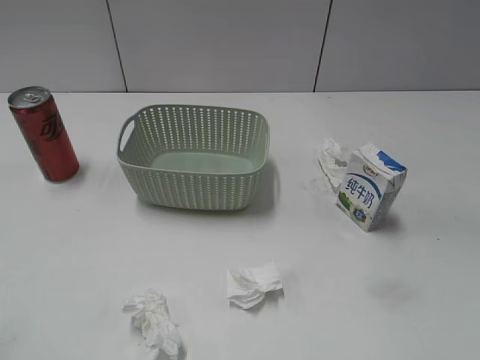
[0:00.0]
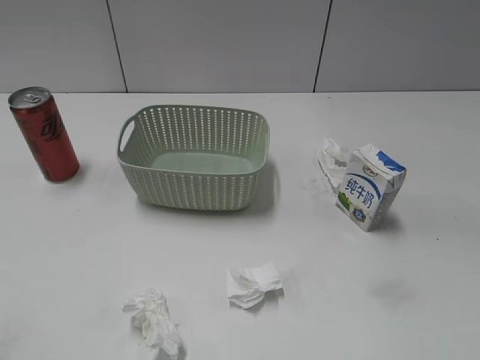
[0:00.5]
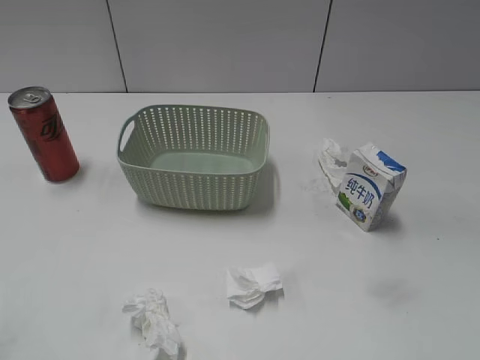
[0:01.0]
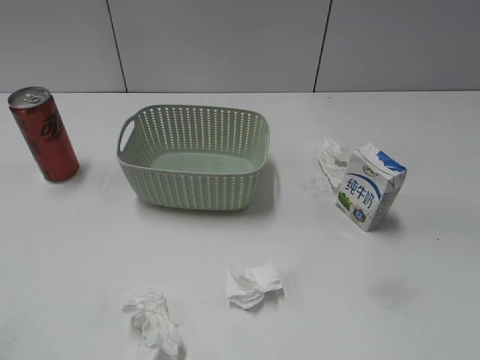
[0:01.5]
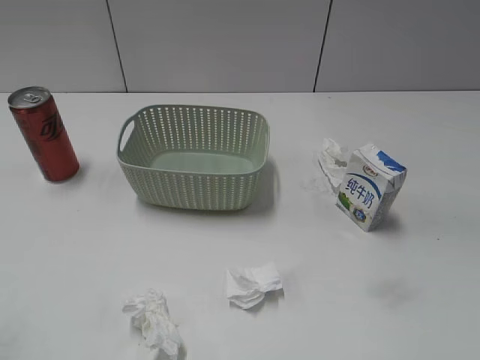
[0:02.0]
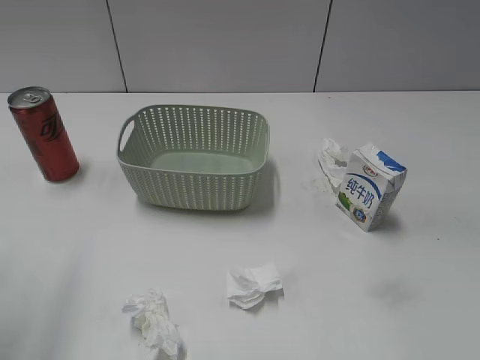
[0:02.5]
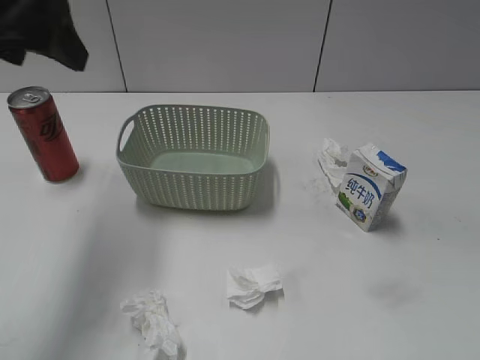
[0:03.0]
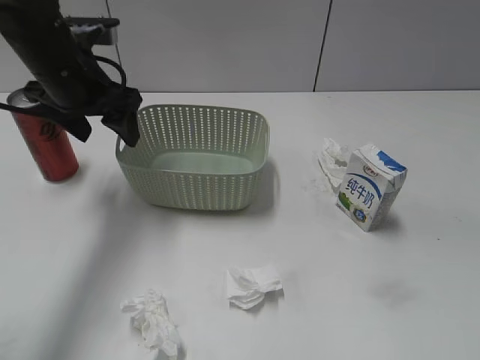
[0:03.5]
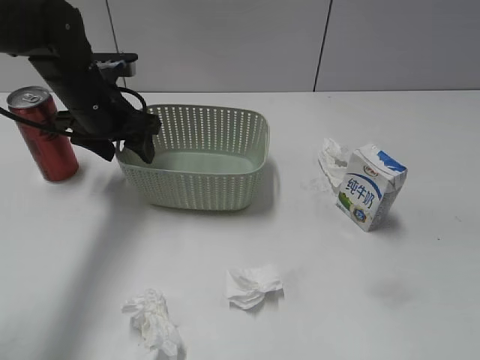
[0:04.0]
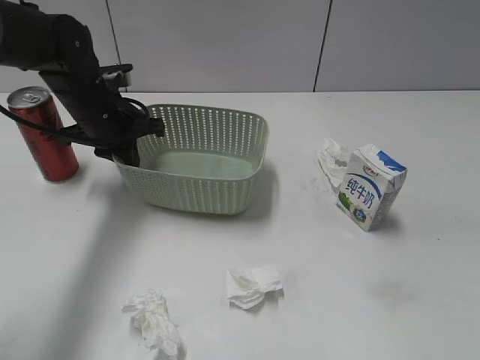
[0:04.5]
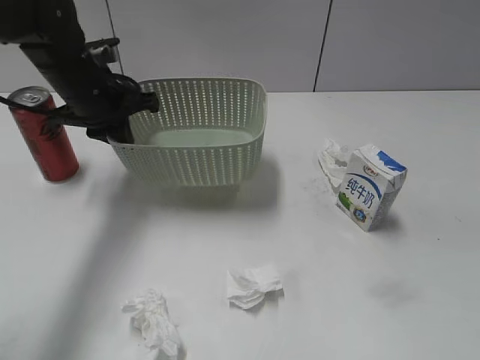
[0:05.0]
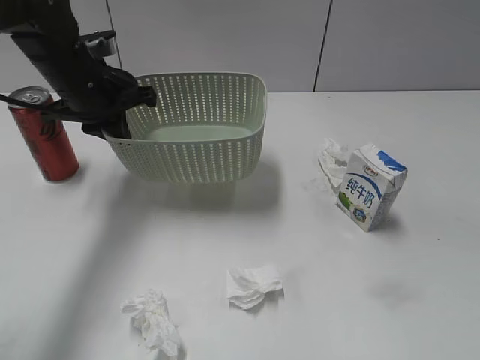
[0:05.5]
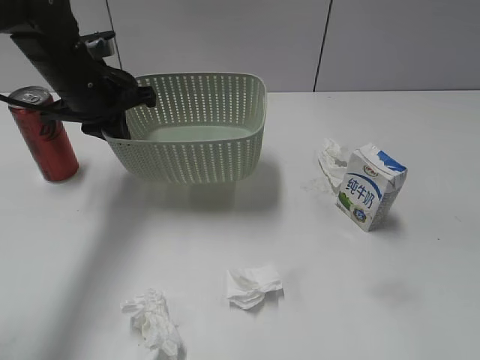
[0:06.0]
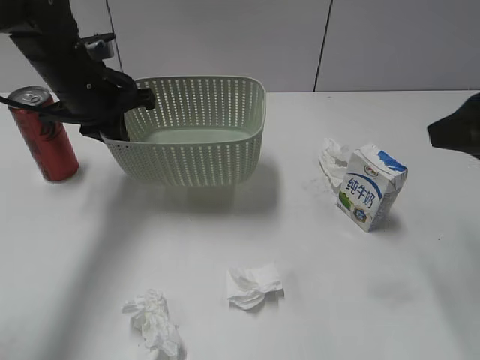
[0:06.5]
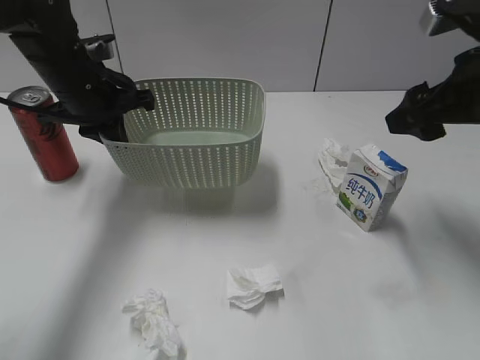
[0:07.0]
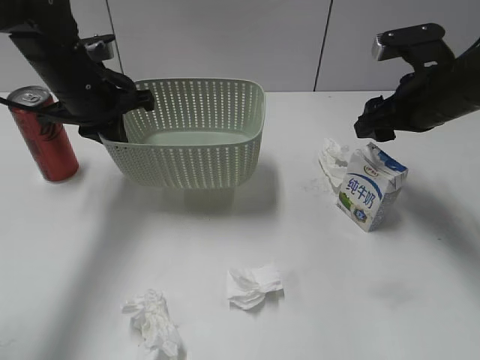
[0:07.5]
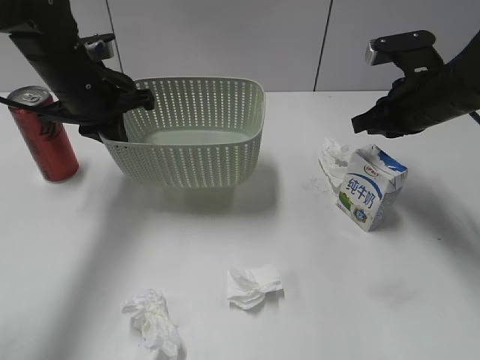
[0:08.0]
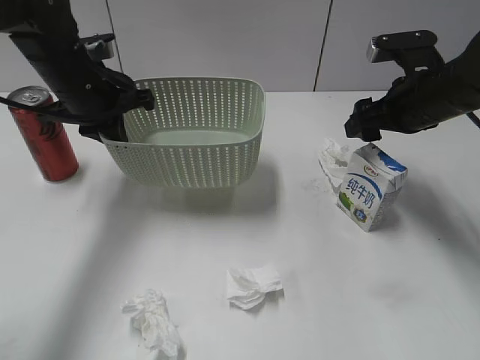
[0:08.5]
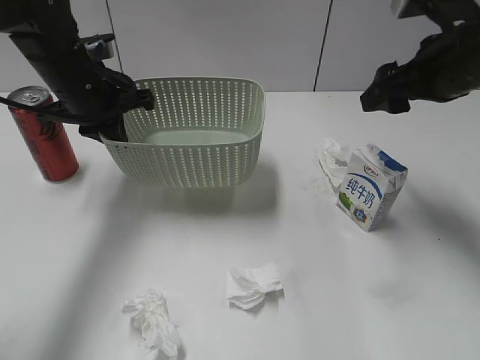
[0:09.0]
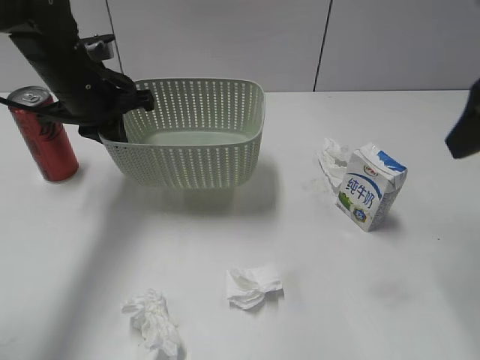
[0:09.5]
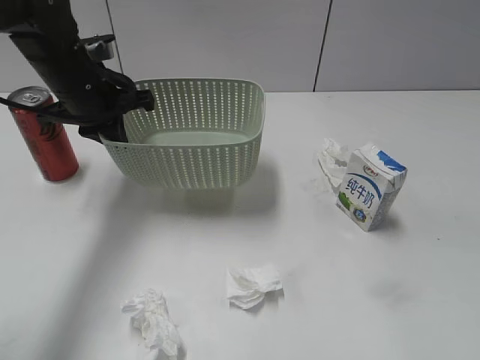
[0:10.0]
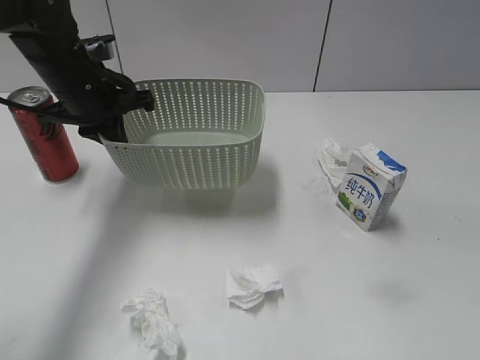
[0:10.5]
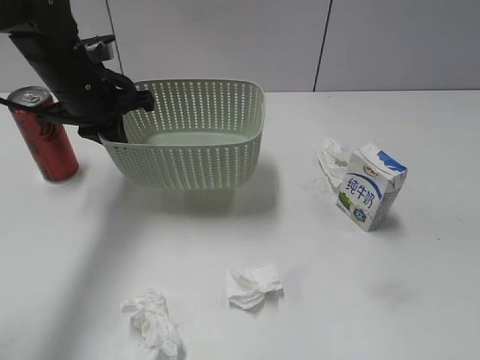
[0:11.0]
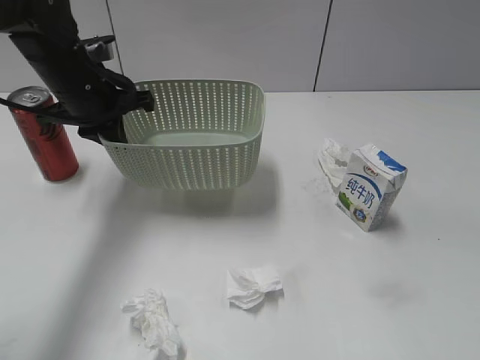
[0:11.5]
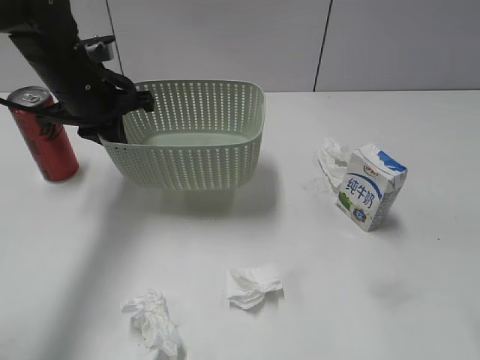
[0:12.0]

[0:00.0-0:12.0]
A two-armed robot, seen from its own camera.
Step, 0:03.0 to 0:04.0: Grasp the basket with left gripper.
Step, 0:04.5 to 0:06.0: Lift the basket with left gripper.
0:02.0 to 0:04.0: The left gripper is displaced forward by approximately 35 cm.
0:04.0 to 0:06.0: The right gripper heads forward, covering approximately 10 cm. Meanwhile the left gripper closes its fingers.
0:06.0 to 0:08.0: The right gripper is displaced forward and downward by about 30 cm, and closes.
0:08.0 to 0:10.0: The right gripper is displaced backward and upward by some 30 cm, and opens up.

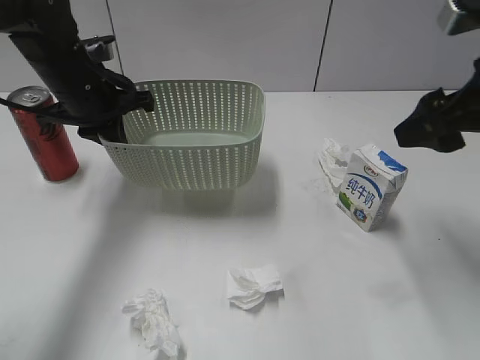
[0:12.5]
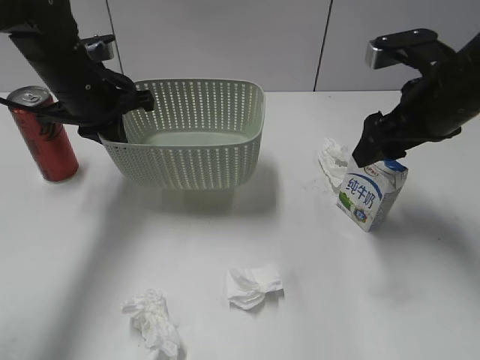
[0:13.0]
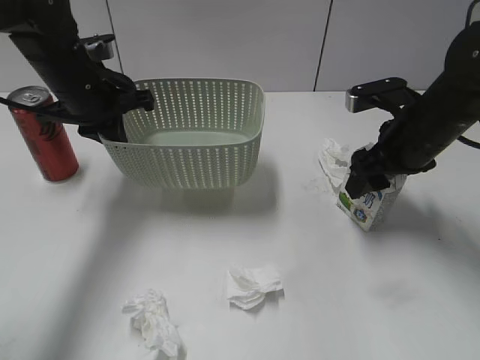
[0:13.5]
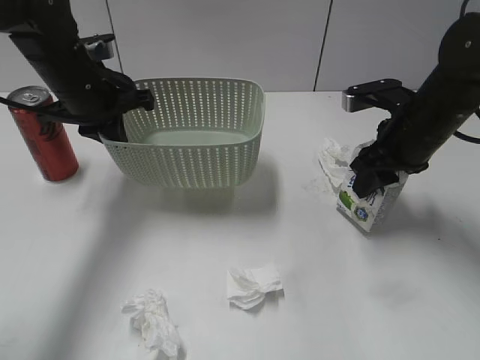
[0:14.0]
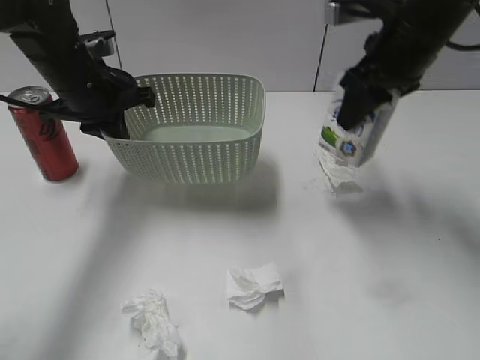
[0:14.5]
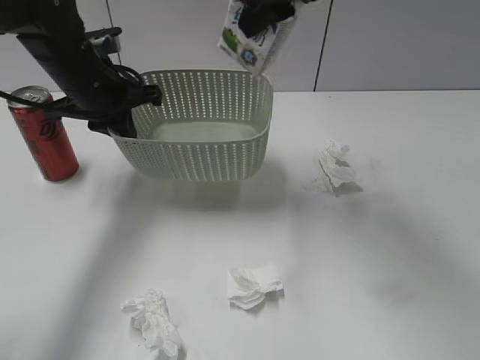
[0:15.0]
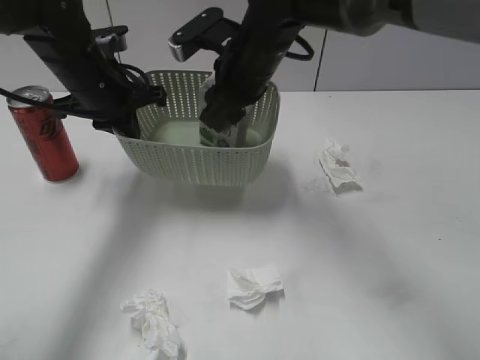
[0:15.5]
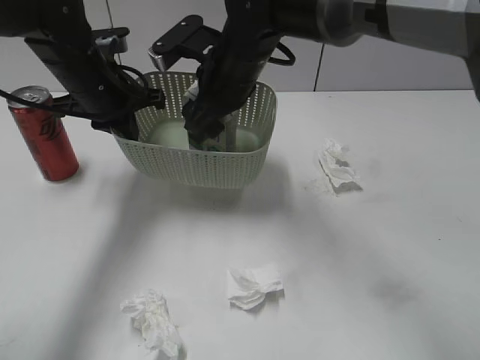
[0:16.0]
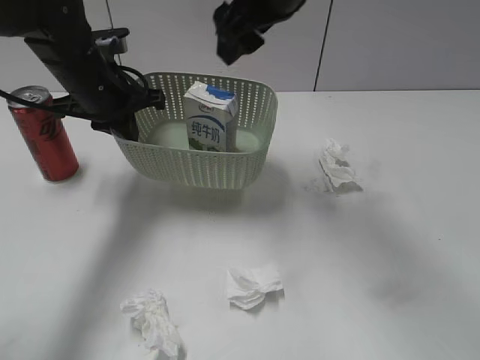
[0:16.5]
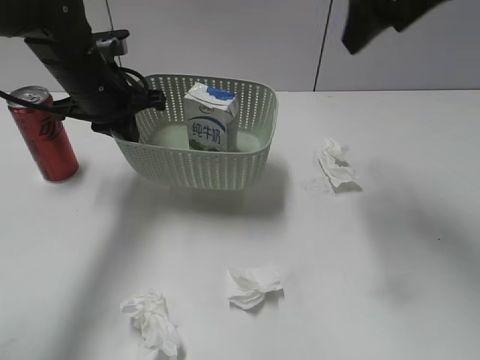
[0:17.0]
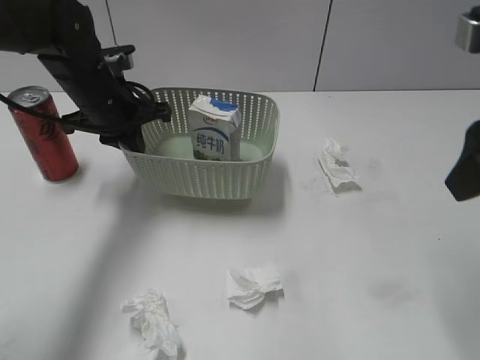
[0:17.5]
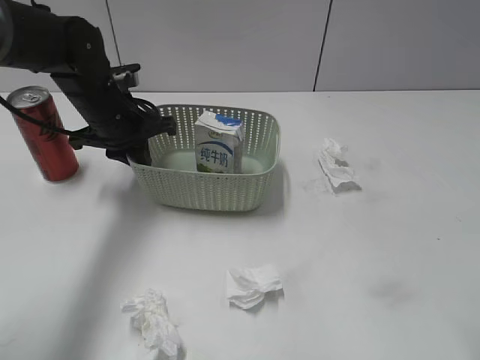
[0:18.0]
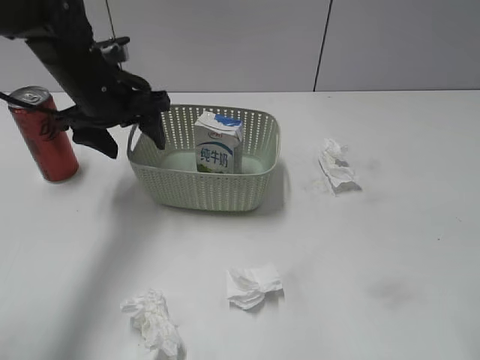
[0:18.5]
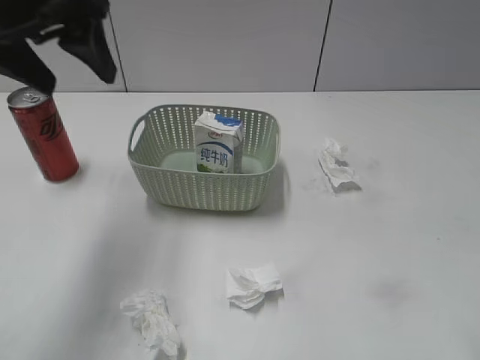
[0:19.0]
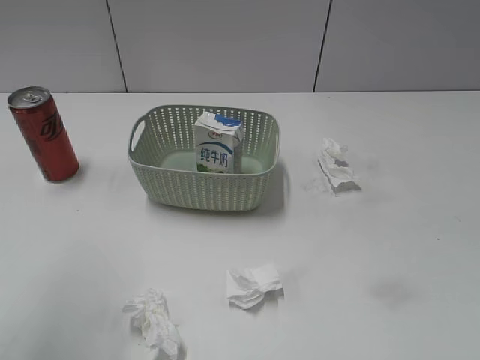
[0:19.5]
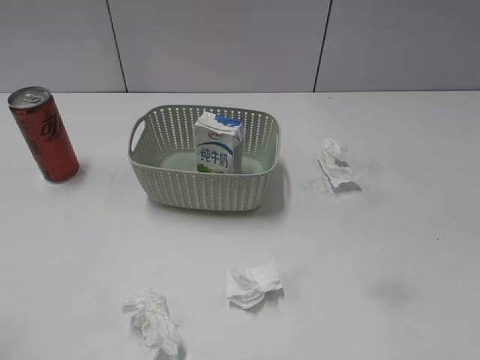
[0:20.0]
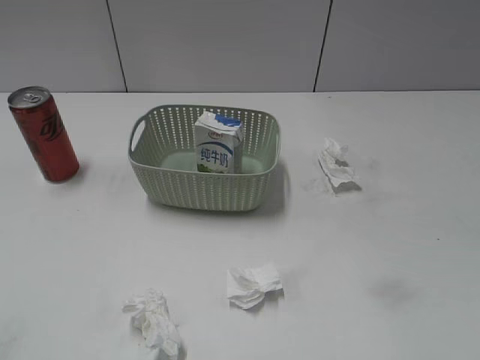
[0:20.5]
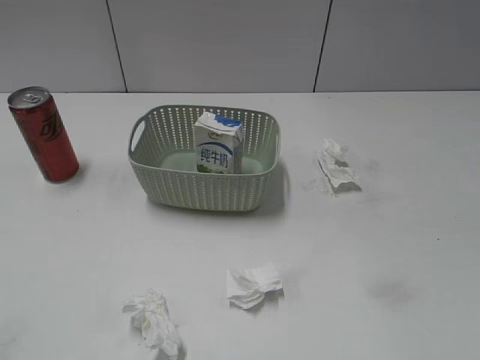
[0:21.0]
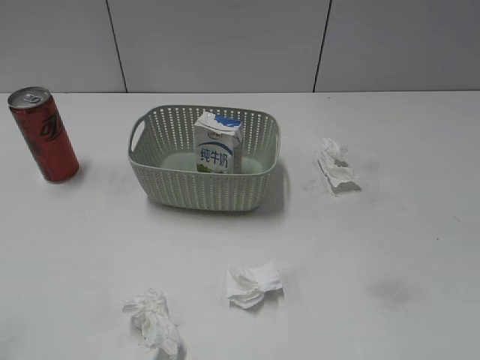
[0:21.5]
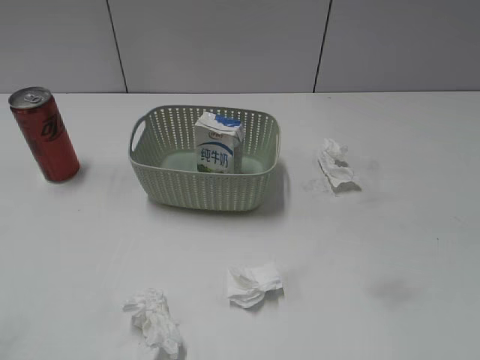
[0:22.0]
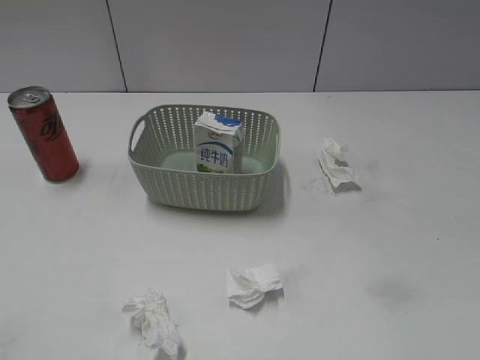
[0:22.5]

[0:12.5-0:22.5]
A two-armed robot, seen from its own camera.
Step, 0:14.0 to 0:16.5: Place the milk in the basket with right gripper.
Step, 0:17.0 to 0:18.0: Place the basket on the table with left gripper.
0:12.5 to 0:14.5: The right gripper heads forward and to the left, covering about 15 cm, moves approximately 10 cm downward and comes back, and closes its fingers.
0:14.5 to 0:16.5: The right gripper moves to the left, approximately 15 cm, and opens up.
0:16.5 to 0:18.5: The right gripper goes approximately 30 cm backward and to the right. Meanwhile the left gripper opens its fingers.
0:18.5 to 0:20.5: The left gripper moves backward, approximately 35 cm.

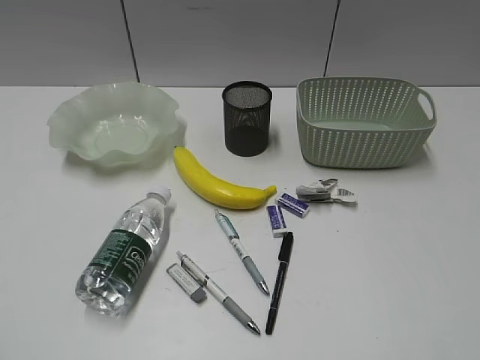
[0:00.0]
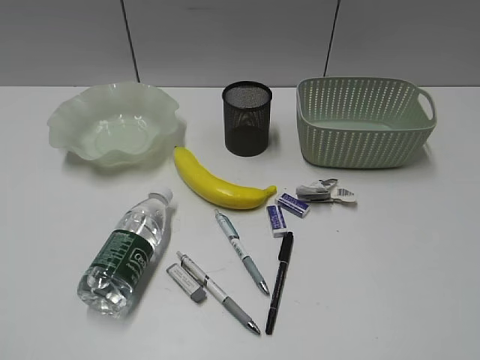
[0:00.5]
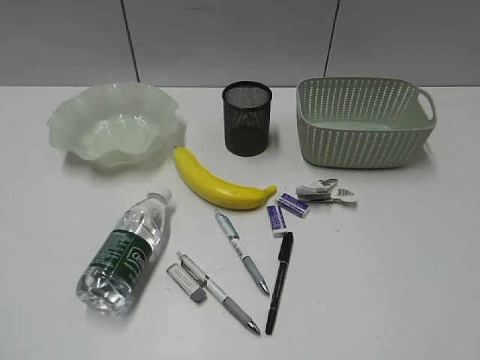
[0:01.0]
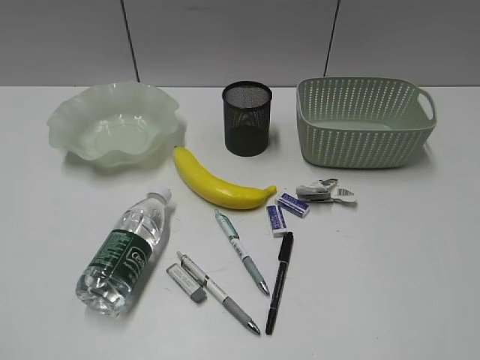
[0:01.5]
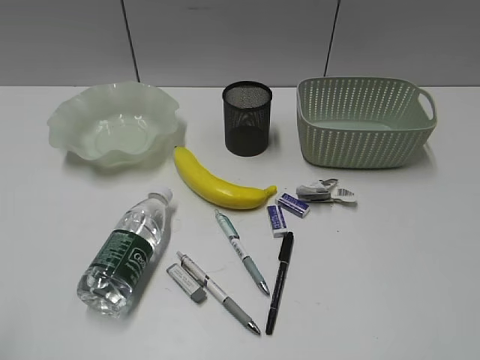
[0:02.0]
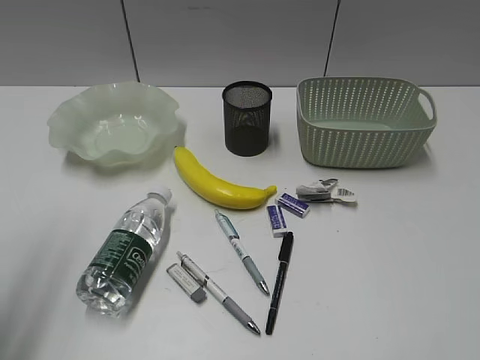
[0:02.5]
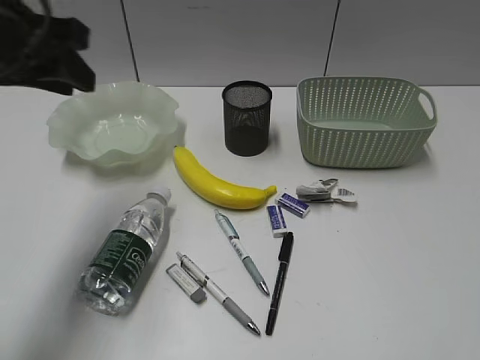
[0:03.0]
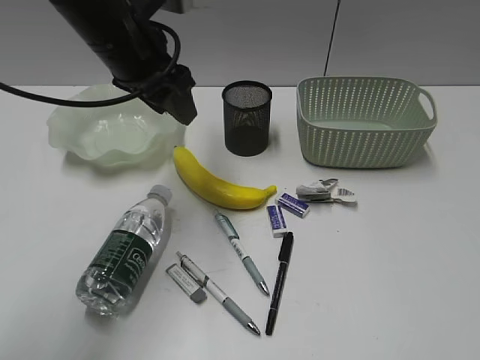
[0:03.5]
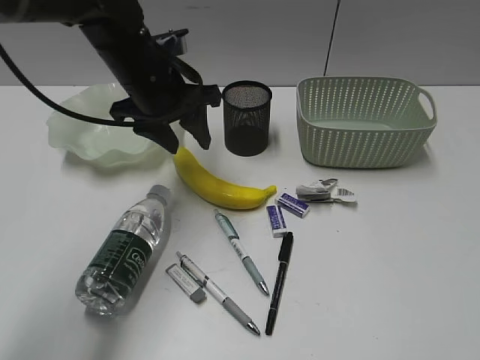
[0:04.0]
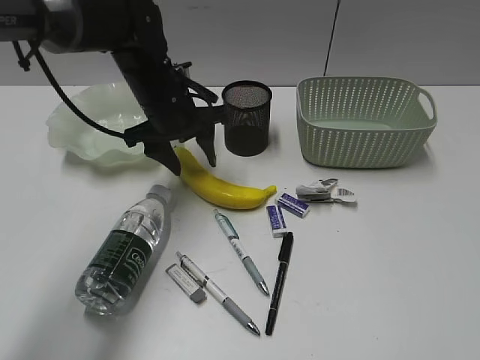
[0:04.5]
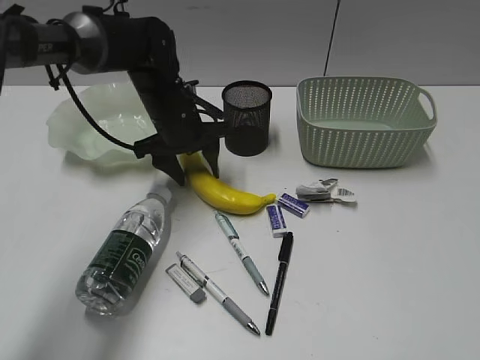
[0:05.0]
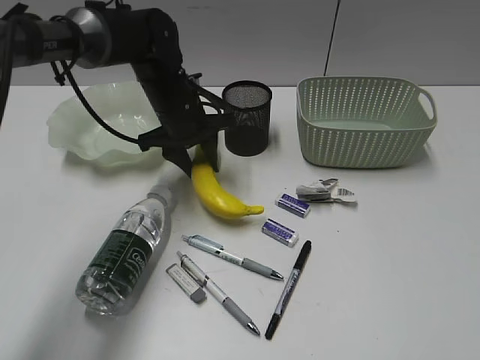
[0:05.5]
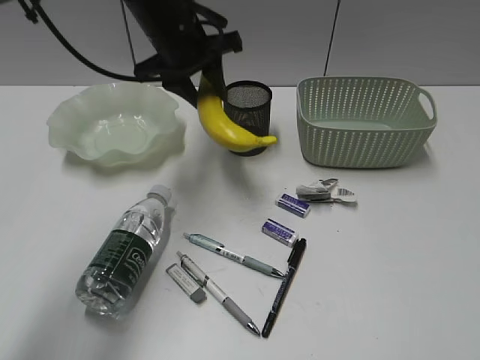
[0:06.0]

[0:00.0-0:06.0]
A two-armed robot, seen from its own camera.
Step, 0:02.0 to 0:05.0: Grasp the banana with left gripper.
0:02.0 to 0:04.0: The left gripper is displaced forward and to the right by roughly 40 cm, and opens its fingers.
0:04.0 to 0:06.0: The left gripper heads forward, covering approximately 5 cm, and reaches approximately 10 cm downward, then returns.
